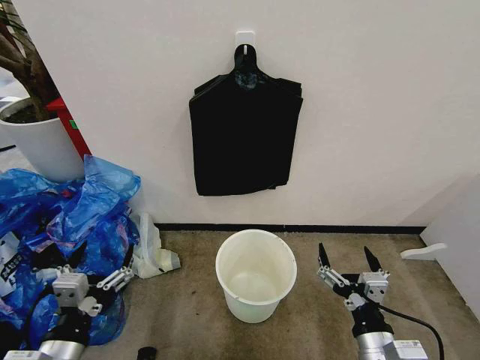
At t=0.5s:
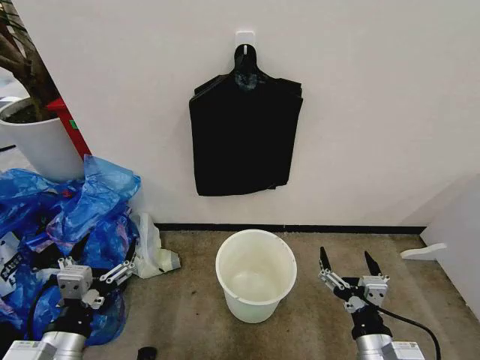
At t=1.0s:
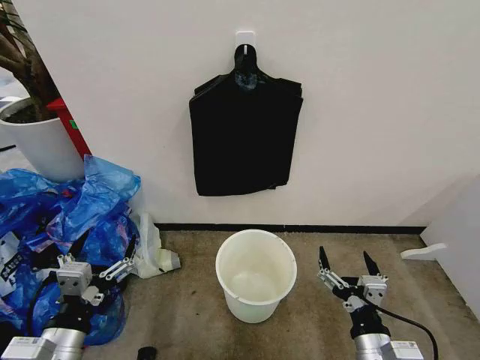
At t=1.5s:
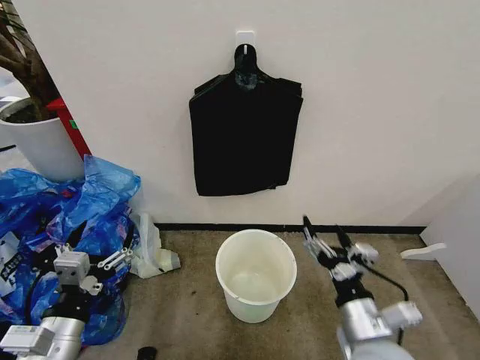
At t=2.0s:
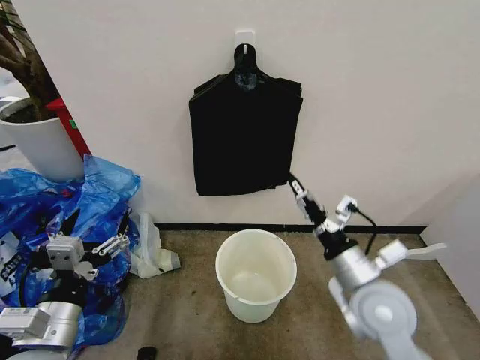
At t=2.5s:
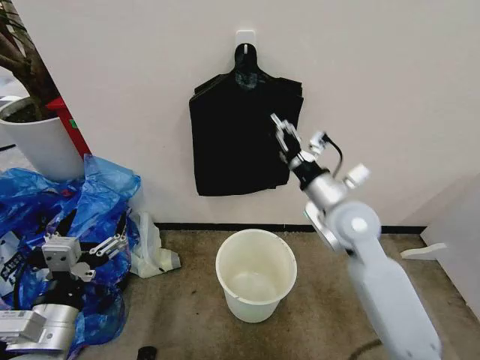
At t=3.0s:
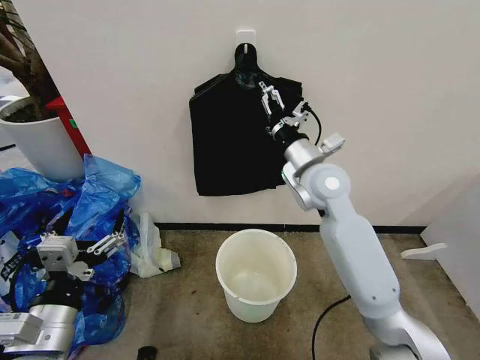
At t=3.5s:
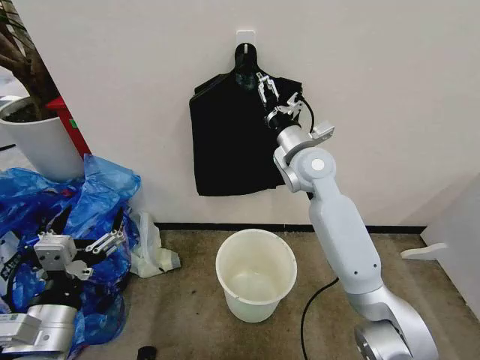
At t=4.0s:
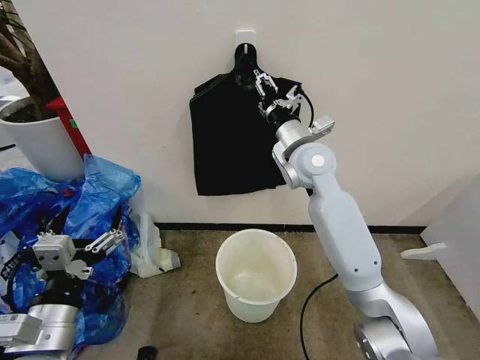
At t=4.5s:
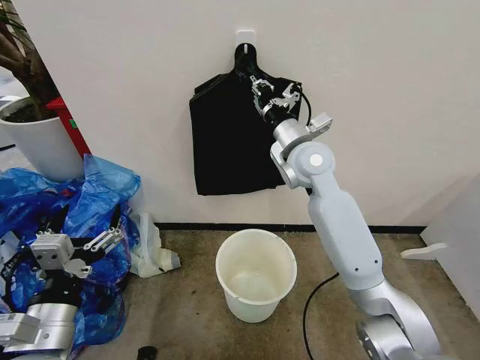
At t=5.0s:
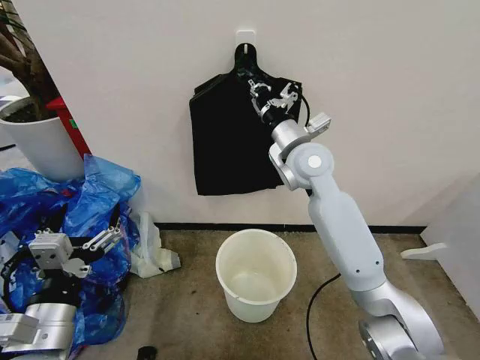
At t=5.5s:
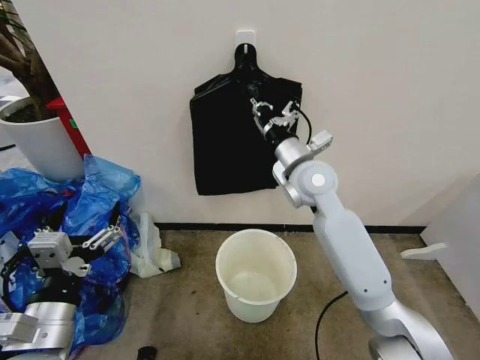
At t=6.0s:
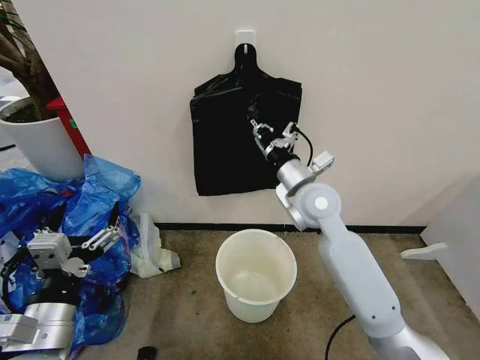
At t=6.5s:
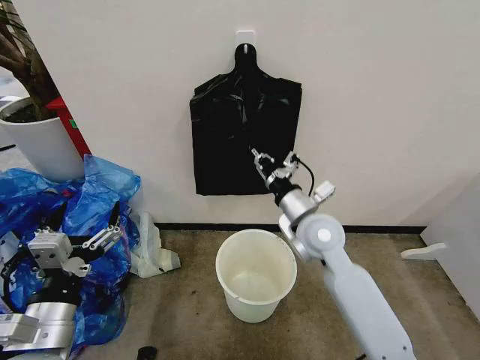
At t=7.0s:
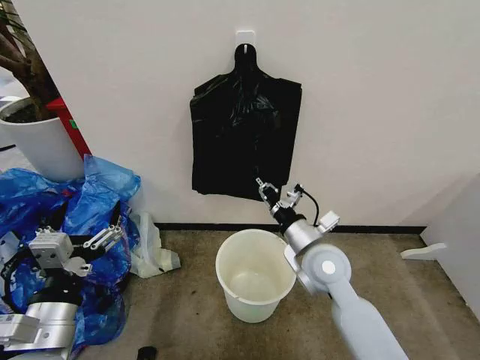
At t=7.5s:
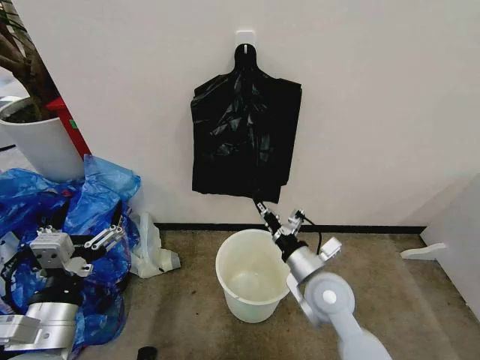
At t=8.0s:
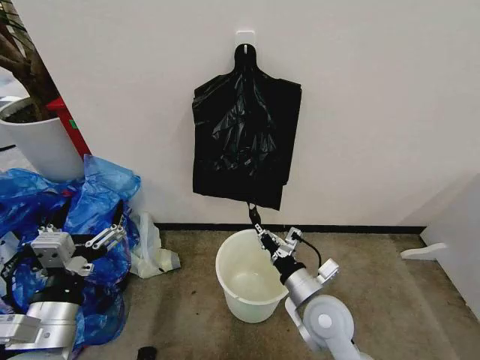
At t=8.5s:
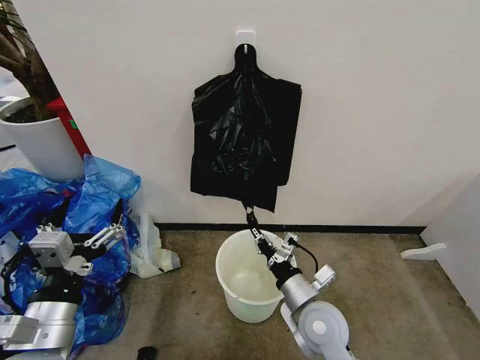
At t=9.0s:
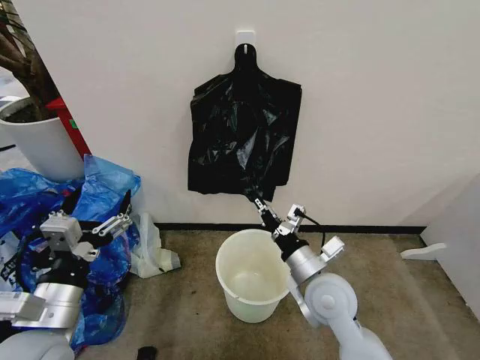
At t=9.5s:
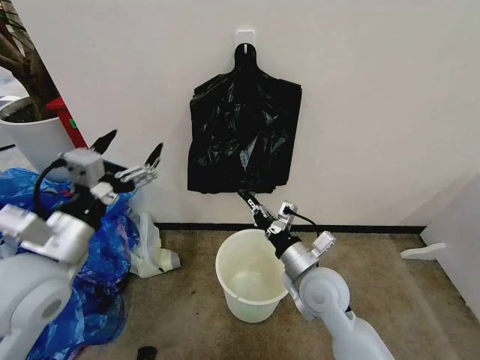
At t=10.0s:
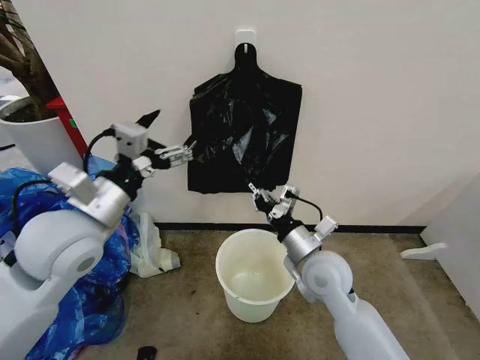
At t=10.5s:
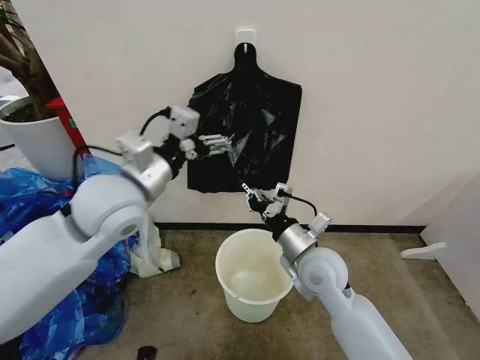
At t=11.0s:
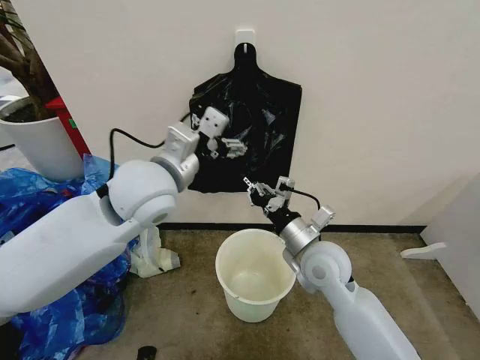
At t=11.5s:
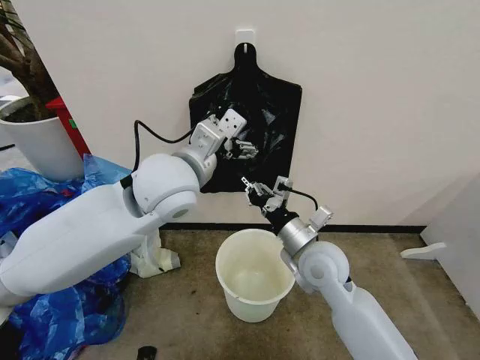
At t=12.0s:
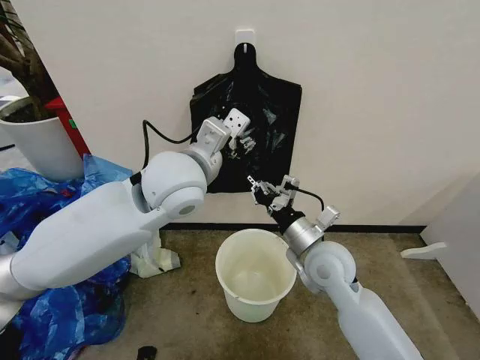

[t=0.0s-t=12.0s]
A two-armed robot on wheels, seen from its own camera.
Task of the whole recording: Place the garbage bag over the trash bin.
t=2.0s to t=4.0s: The right gripper heads forward, upward and to the left, covering roughly 25 cm, and closes its fingers.
t=4.0s to t=6.0s: The right gripper goes roughly 10 cm backward and downward, and closes up.
t=6.0s to t=8.0s: The right gripper goes roughly 25 cm backward and downward.
t=8.0s to t=10.0s: The right gripper travels upward and forward by roughly 10 cm, while the left gripper shifts roughly 20 cm forward and upward.
t=10.0s to t=12.0s: The left gripper goes some 15 cm to the right and forward, and closes up.

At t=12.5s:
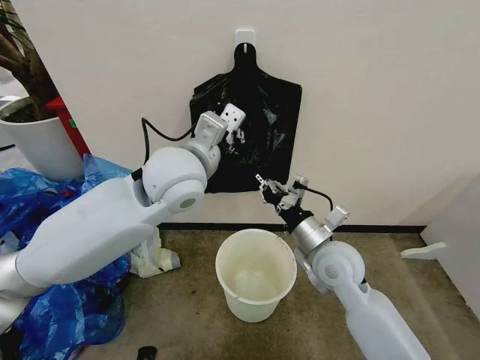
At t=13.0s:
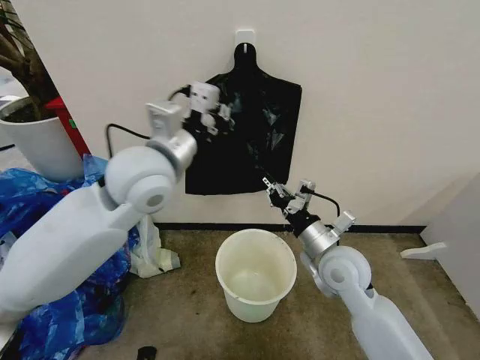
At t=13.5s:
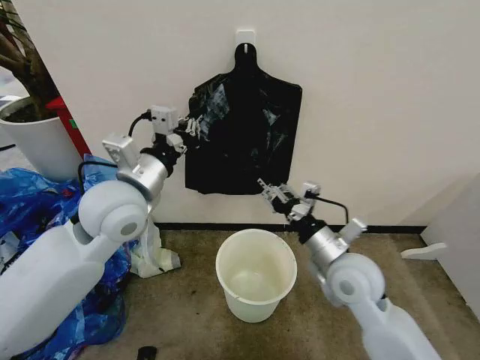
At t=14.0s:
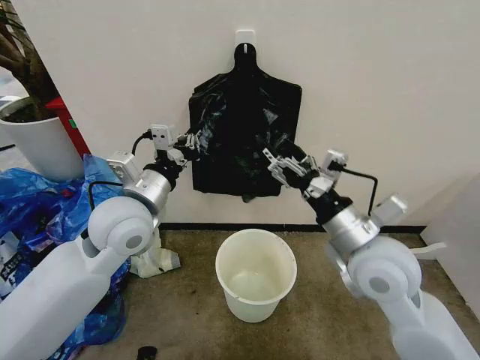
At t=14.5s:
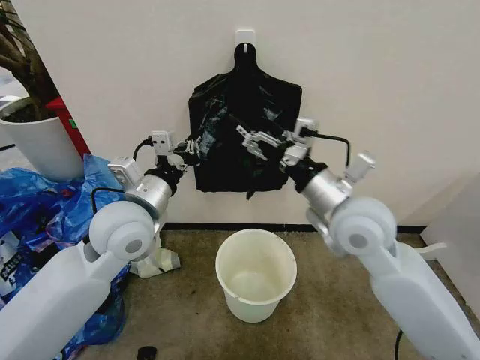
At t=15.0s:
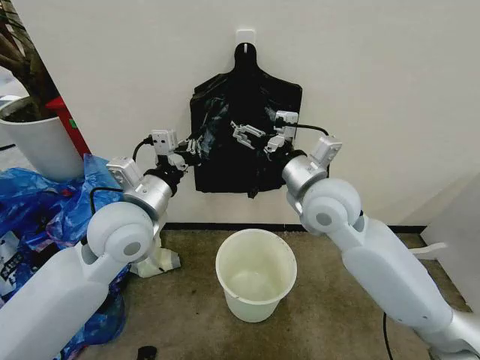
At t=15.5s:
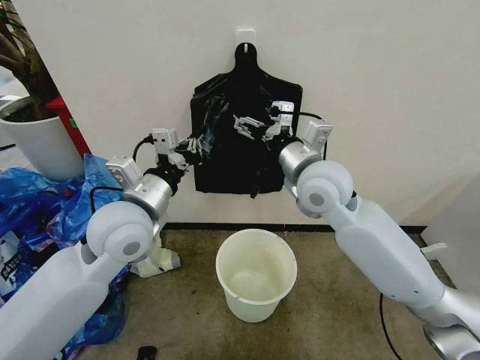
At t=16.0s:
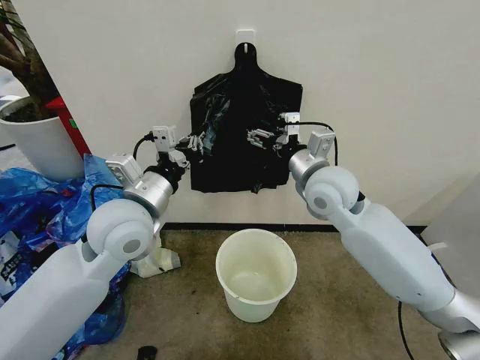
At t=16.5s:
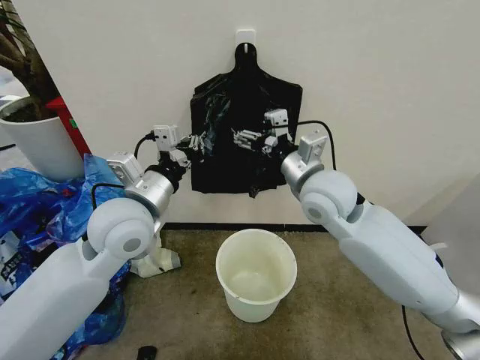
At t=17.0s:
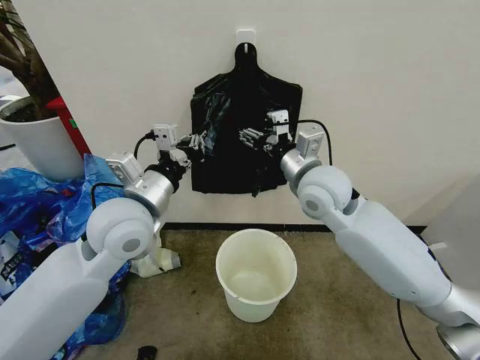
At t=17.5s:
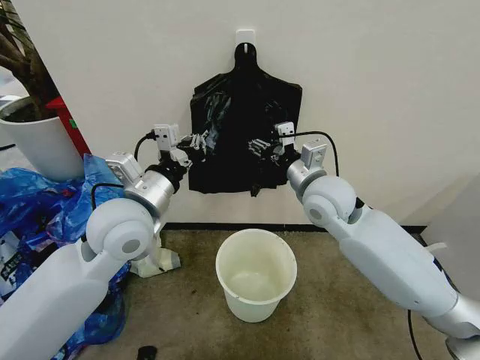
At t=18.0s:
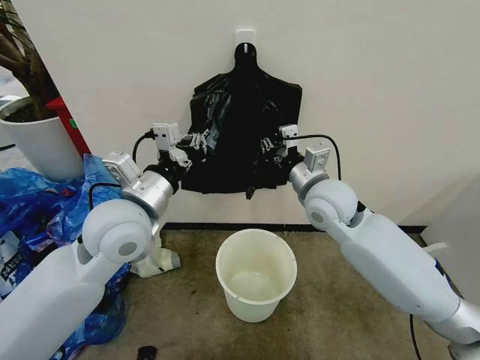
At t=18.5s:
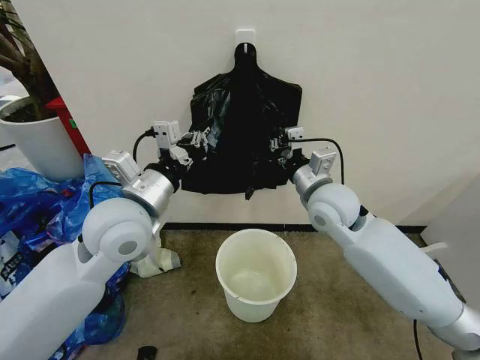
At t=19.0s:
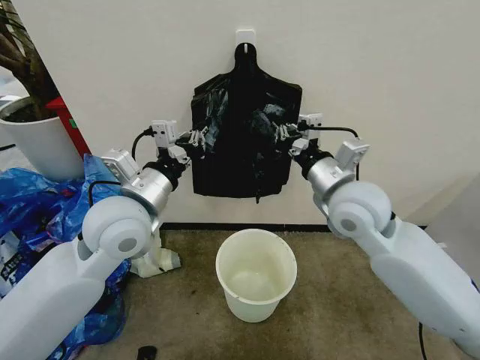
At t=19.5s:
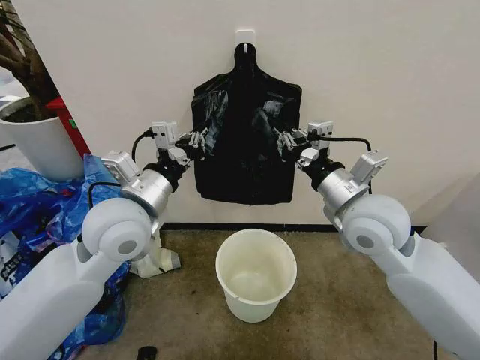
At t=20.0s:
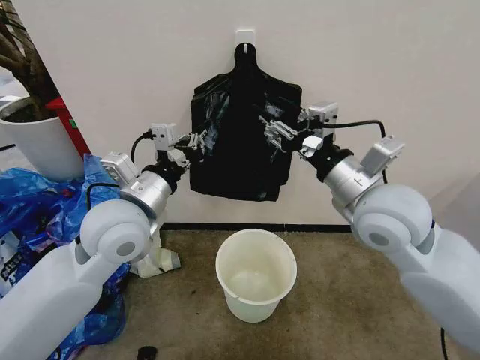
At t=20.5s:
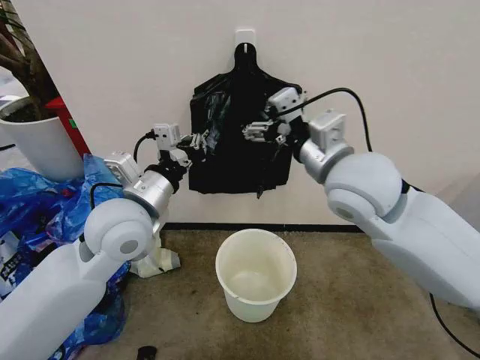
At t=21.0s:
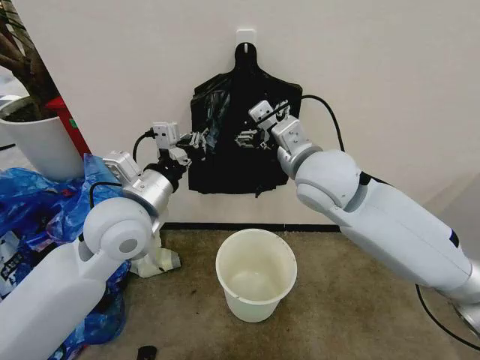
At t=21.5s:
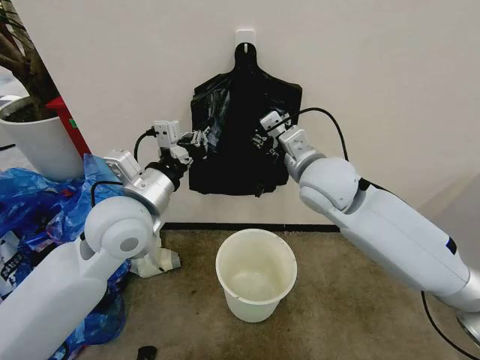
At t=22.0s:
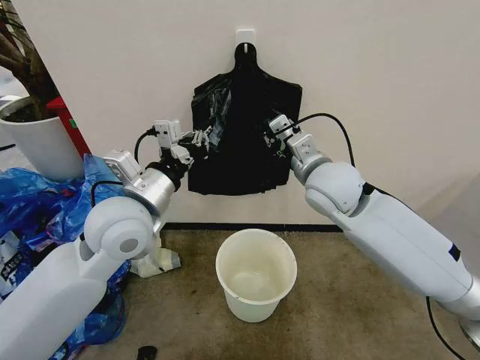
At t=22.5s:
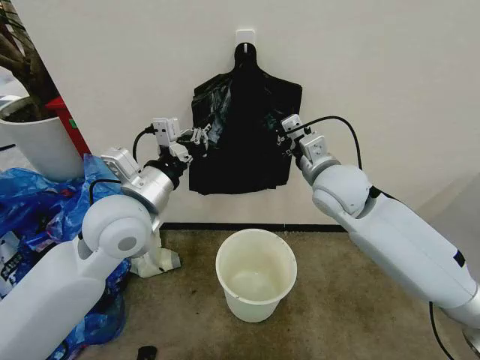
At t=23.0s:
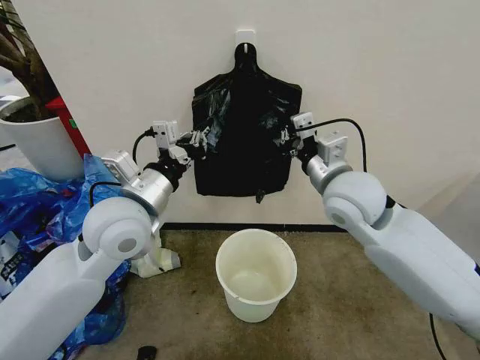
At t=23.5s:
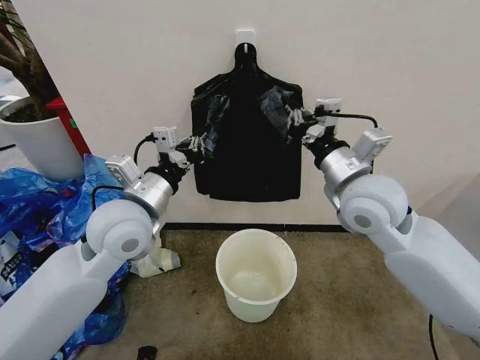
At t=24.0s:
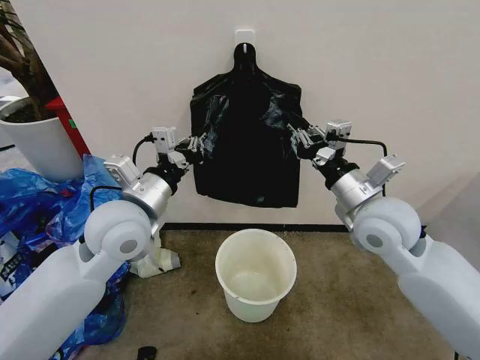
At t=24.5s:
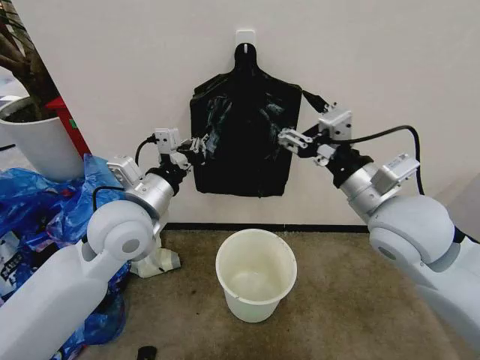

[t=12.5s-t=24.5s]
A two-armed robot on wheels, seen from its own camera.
Task of the whole recording: Place the garbage bag over the trash bin.
t=12.5s to t=14.5s: The left gripper shifts about 10 cm to the left and downward. Meanwhile the right gripper is displaced upward by some 10 cm, and opens.
t=14.5s to t=16.5s: The right gripper is displaced forward by roughly 5 cm.
t=16.5s to t=18.5s: The right gripper changes place by approximately 5 cm, and closes up.
t=18.5s to t=20.5s: The right gripper is displaced upward and backward by approximately 15 cm, and opens its fingers.
t=20.5s to t=22.5s: The right gripper is displaced downward and forward by roughly 10 cm, and closes up.
t=22.5s to t=24.5s: The right gripper travels backward by about 10 cm, and opens its fingers.

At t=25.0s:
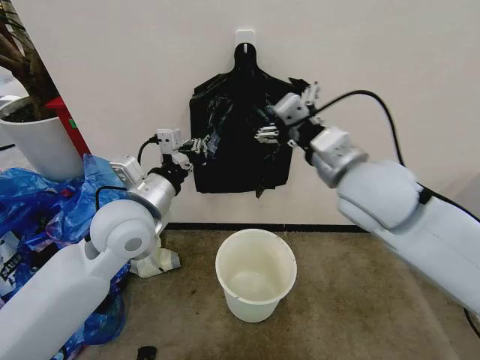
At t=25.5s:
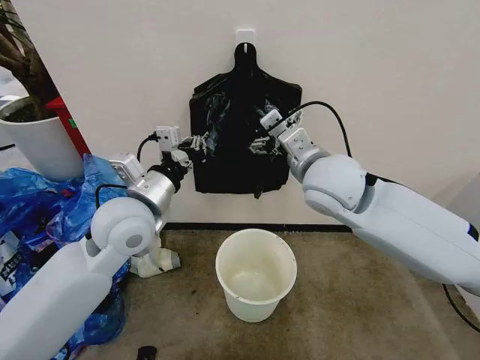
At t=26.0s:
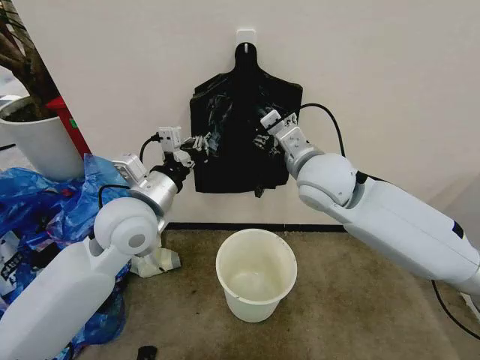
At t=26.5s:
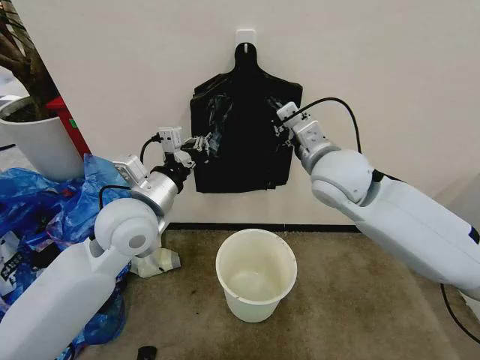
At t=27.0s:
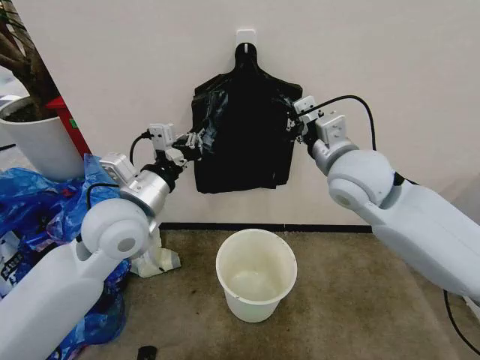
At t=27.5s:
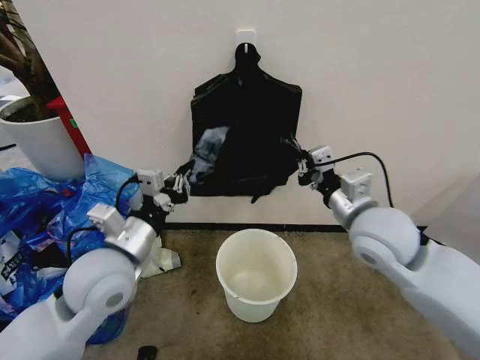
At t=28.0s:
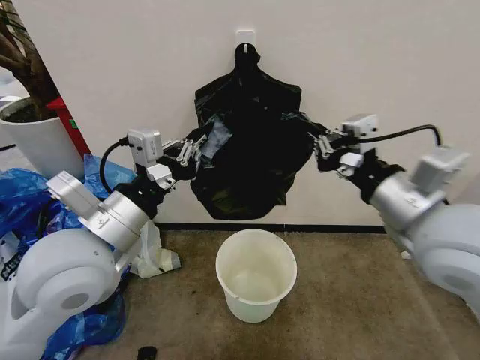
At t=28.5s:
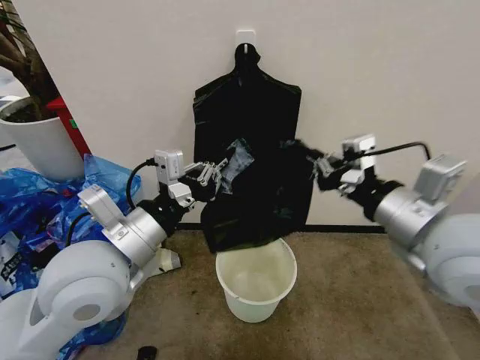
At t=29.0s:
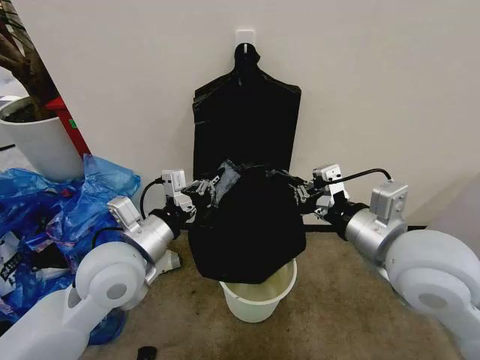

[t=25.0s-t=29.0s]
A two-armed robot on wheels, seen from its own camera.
Task of the whole recording: Place the garbage bag over the trash bin.
t=25.0s to t=27.0s: The right gripper is displaced forward by some 5 cm, and closes its fingers.
t=27.0s to t=29.0s: The right gripper moves backward, about 15 cm, while the left gripper is displaced backward by approximately 5 cm.
